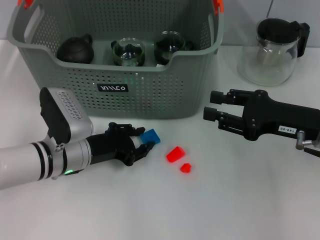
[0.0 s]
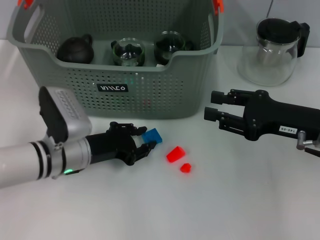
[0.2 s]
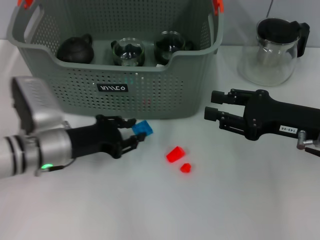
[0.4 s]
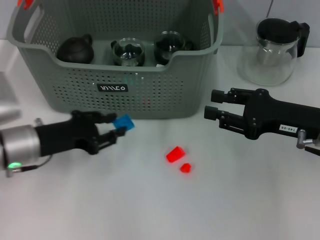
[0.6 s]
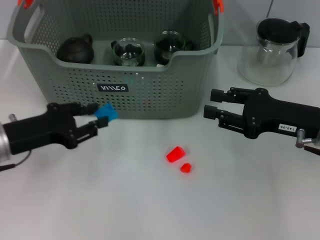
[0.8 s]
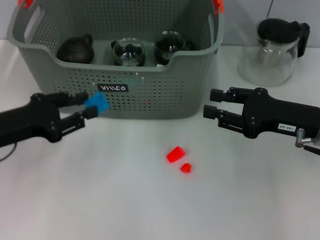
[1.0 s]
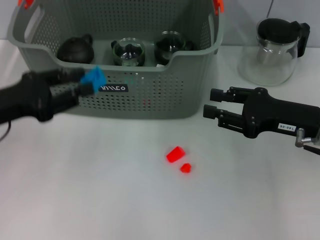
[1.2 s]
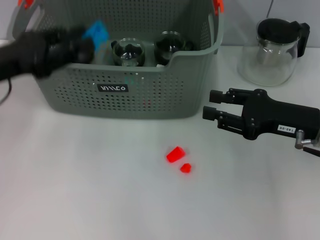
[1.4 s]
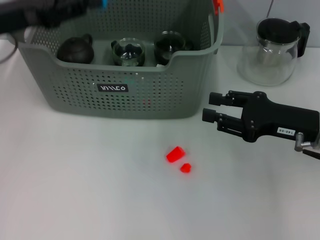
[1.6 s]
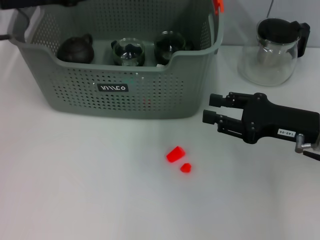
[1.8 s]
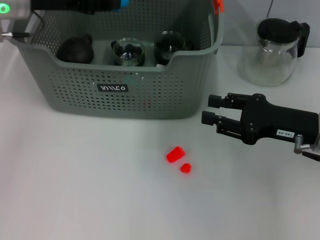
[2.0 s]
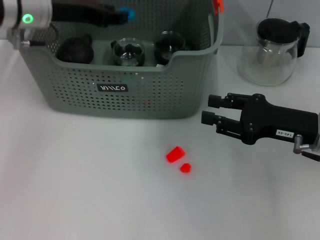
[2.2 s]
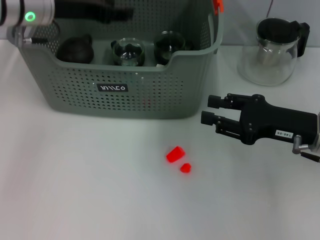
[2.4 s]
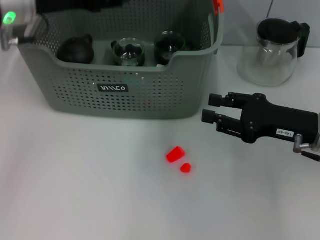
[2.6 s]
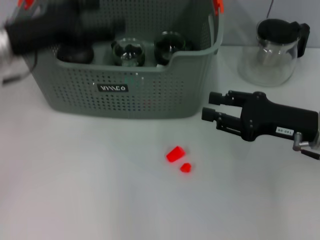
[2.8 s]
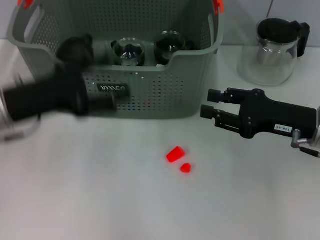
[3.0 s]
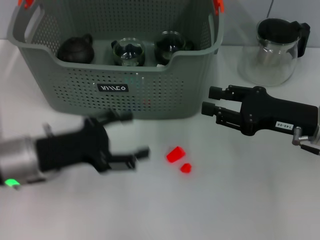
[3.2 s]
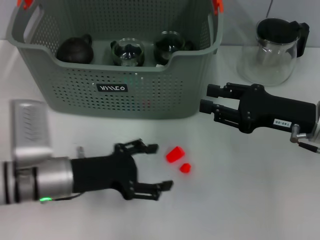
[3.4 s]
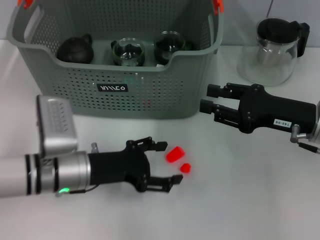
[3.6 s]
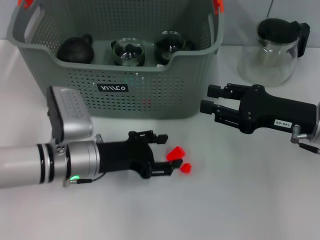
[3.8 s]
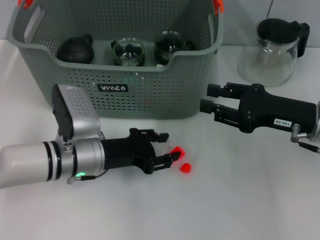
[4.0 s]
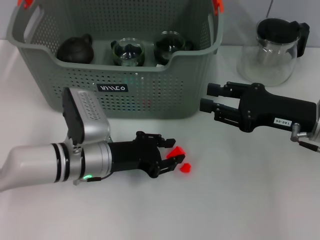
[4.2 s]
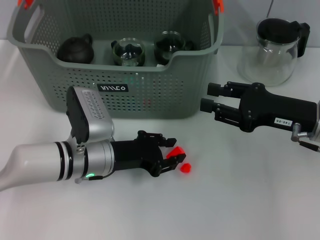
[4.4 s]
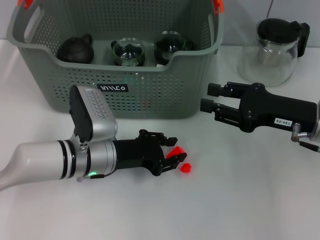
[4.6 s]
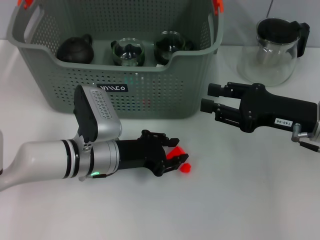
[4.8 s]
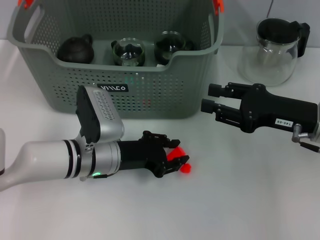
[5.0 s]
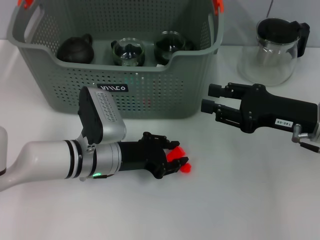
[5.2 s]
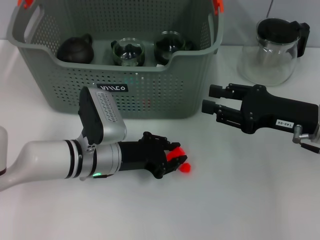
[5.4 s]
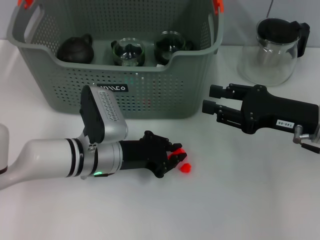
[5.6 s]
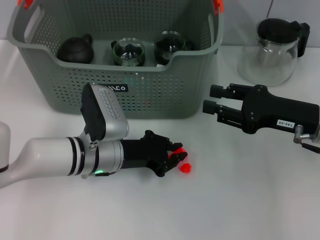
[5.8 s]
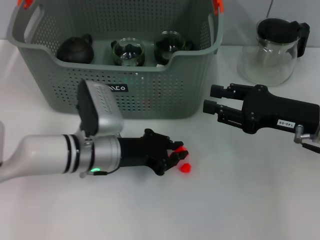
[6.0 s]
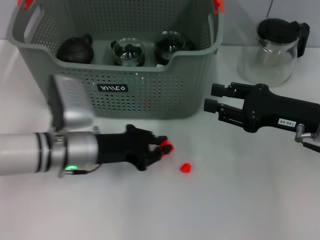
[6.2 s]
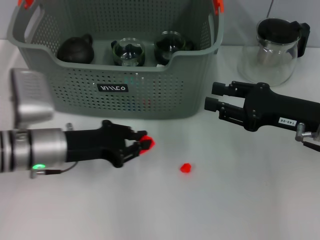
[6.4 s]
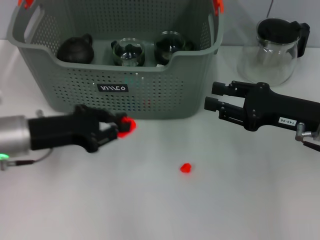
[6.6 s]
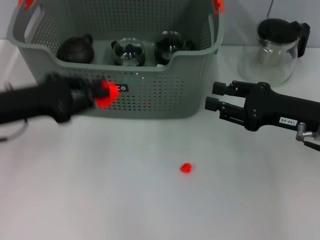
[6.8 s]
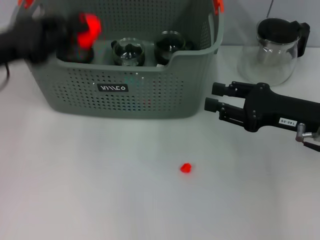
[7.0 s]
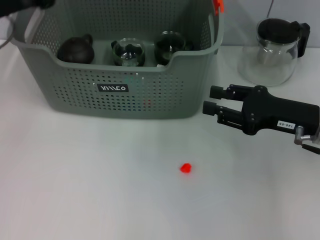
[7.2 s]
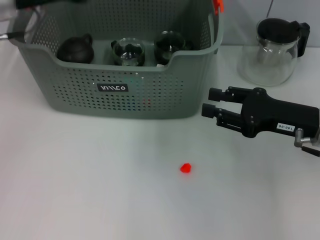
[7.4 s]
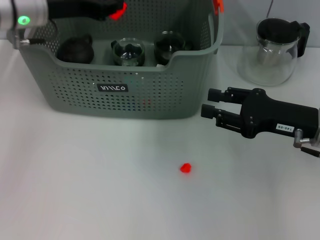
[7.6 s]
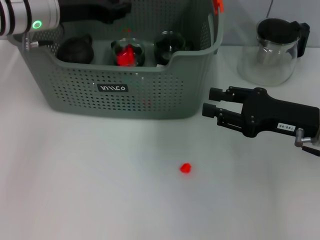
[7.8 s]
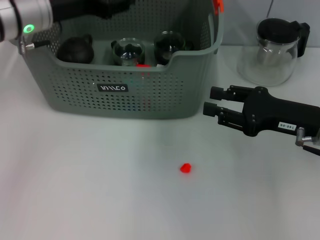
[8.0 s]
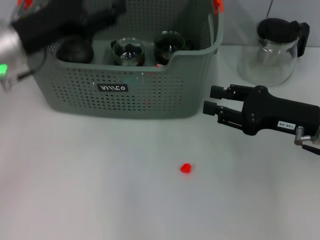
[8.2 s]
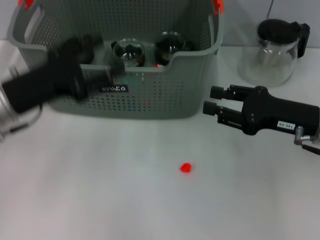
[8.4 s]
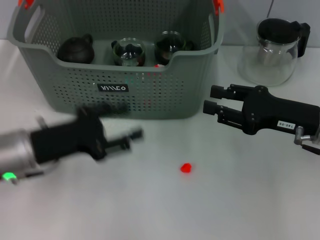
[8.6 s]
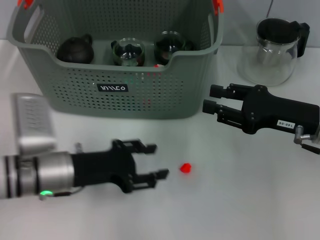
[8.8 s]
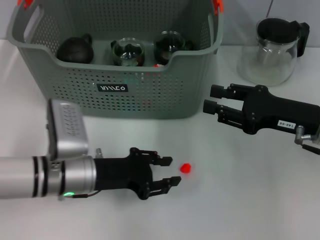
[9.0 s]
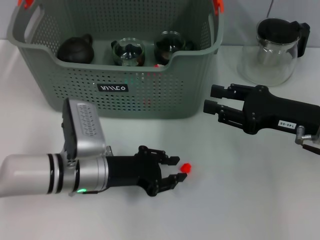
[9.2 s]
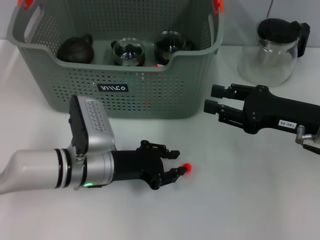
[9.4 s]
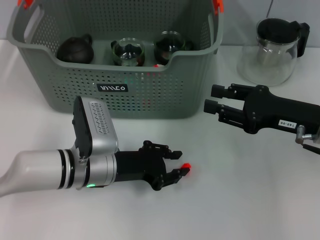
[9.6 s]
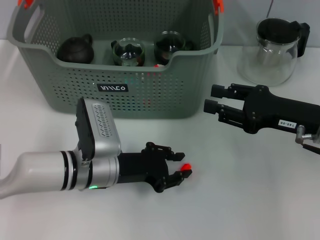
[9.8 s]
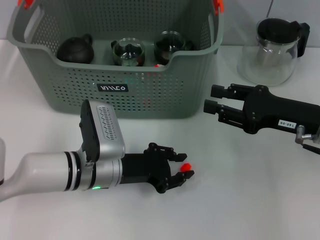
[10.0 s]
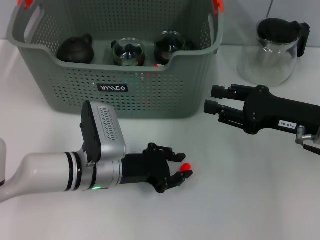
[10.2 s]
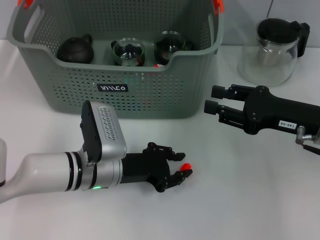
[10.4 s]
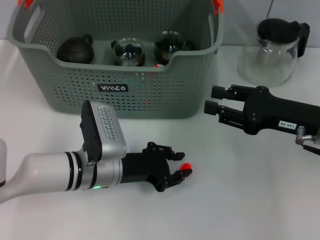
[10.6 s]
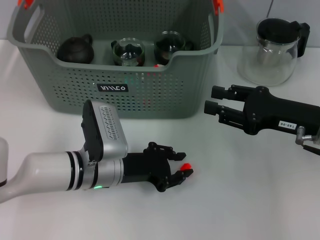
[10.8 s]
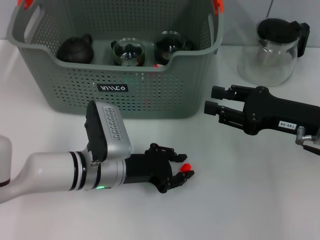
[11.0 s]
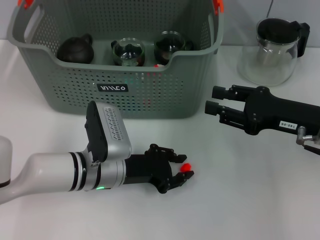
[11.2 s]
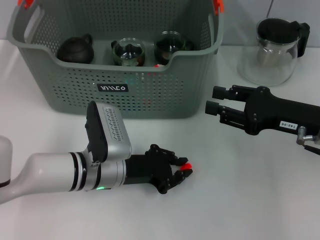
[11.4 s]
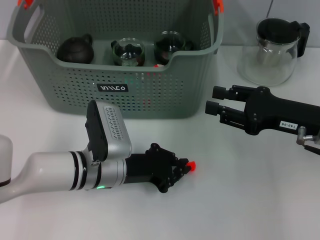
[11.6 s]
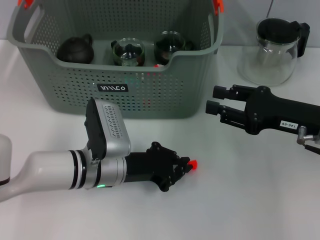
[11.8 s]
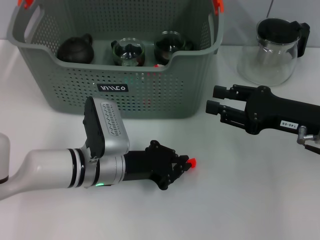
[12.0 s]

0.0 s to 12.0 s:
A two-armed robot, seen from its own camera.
Task of the whole recording: pick up the teacup on the table and place it into the storage bin, pick up the block on the table and place it into the storage bin.
Step, 0.0 to 3.0 s: Place the dark blue block in the storage box with left gripper.
Step, 3.2 to 6.0 s: Grasp the orange block with left gripper.
Step, 6.2 to 8.0 s: Place the orange block in the storage box with left gripper.
0.0 to 1.6 s: The left gripper shifts roughly 20 cm upward and to the left.
1.6 to 3.0 s: The left gripper heads downward and backward, covering some 10 cm, and opens up.
3.0 to 4.4 s: The left gripper travels to the right and downward by some 15 cm, and closes.
4.4 to 6.0 s: The grippers stay close to where they were, moving slightly.
6.0 to 7.6 s: The left gripper heads upward, forward and to the left, covering approximately 20 cm.
7.6 to 9.0 s: The left gripper is displaced downward and backward by about 20 cm, and opens.
9.0 to 10.4 s: The grippers make only small movements.
10.4 to 12.0 s: The left gripper closes up.

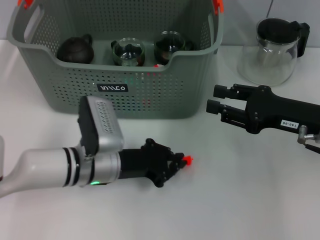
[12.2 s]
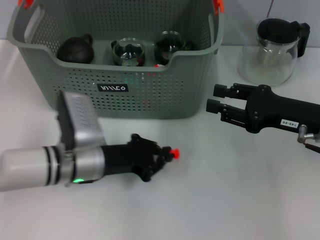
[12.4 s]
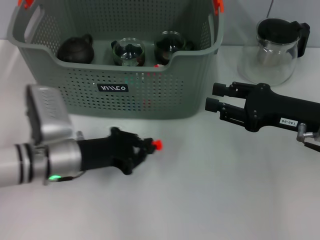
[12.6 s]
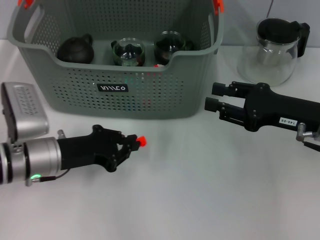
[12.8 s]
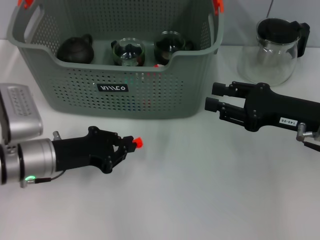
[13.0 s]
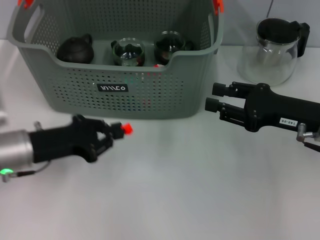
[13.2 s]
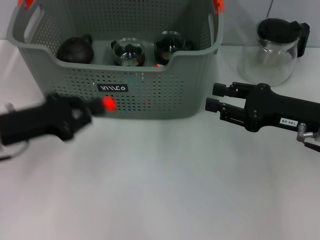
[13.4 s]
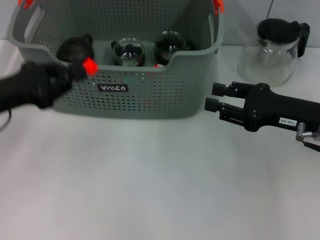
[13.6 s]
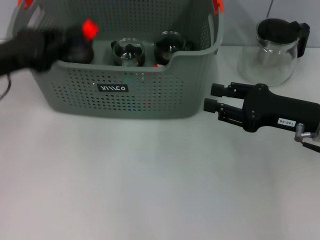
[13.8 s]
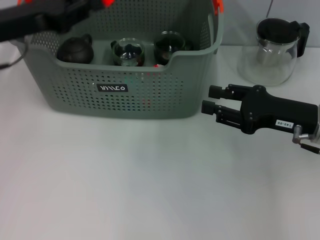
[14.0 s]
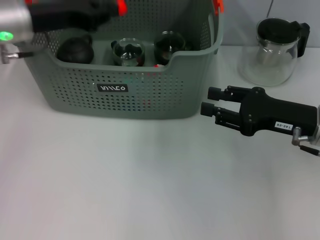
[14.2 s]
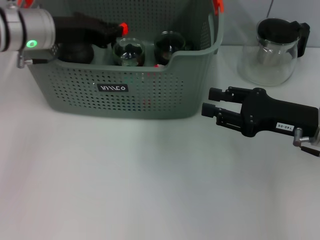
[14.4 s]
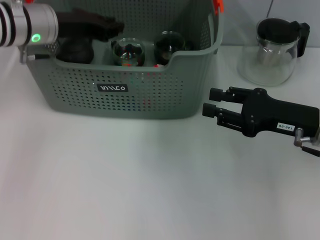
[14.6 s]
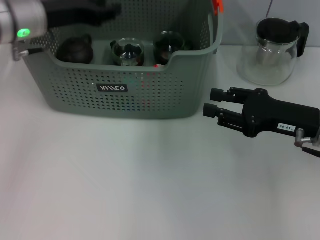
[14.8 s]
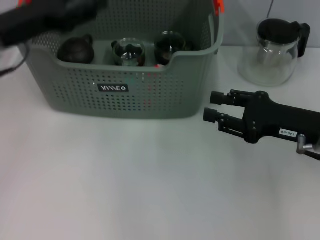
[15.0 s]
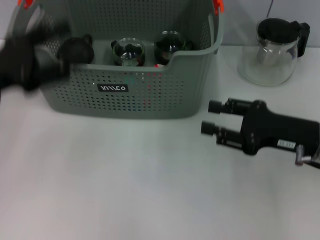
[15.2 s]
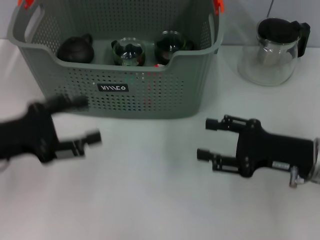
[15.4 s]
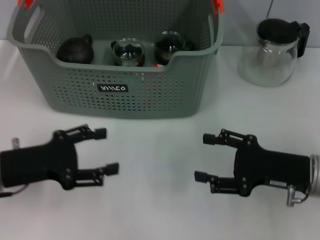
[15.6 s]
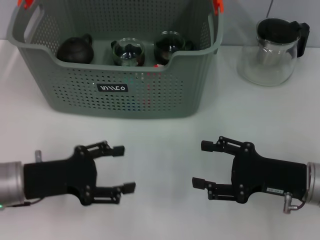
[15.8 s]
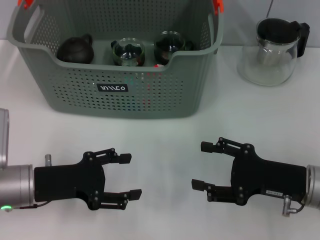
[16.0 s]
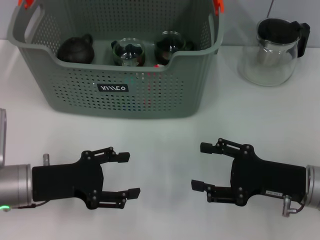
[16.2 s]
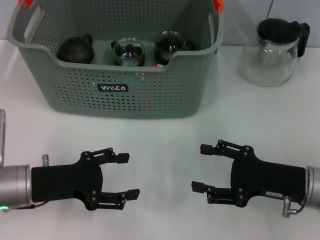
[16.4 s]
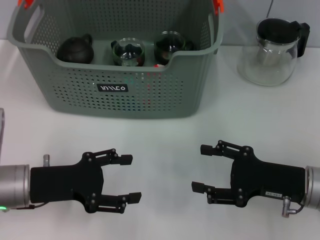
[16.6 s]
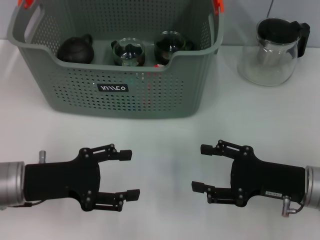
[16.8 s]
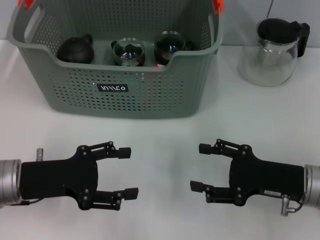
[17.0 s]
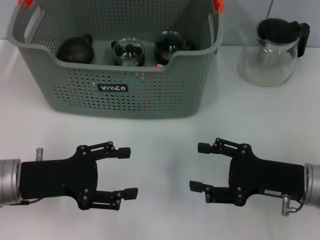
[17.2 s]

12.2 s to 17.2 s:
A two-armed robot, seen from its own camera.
Task of the whole recording: pick up the teacup on the table and place it into the storage bin, pick up the block on the table and place it into the storage bin.
Step, 12.4 to 15.0 s: Place the orange block in the storage box with left gripper.
12.2 to 13.8 s: The left gripper goes some 20 cm to the left and upward.
13.8 to 15.6 s: The left gripper heads downward and backward, covering approximately 10 cm, and opens its fingers. The right gripper ends up roughly 5 cm from where it was, and opens its fingers.
15.6 to 17.2 s: The grippers make only small movements.
